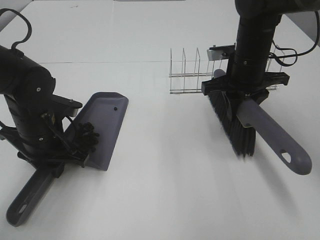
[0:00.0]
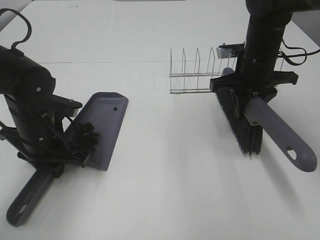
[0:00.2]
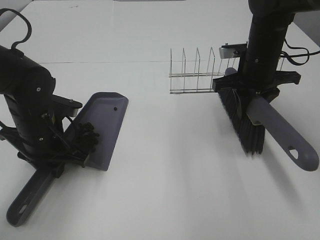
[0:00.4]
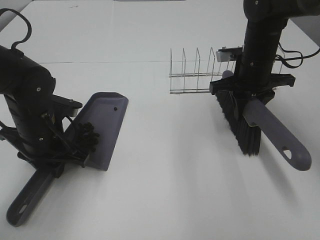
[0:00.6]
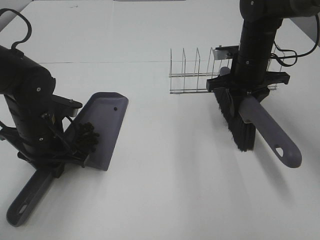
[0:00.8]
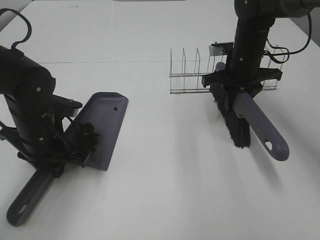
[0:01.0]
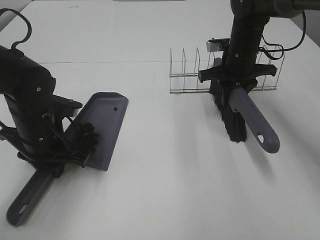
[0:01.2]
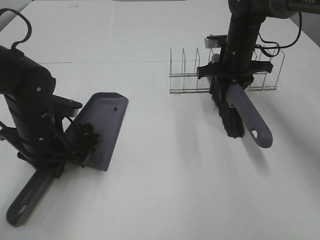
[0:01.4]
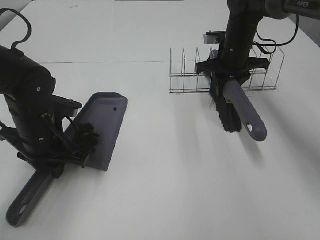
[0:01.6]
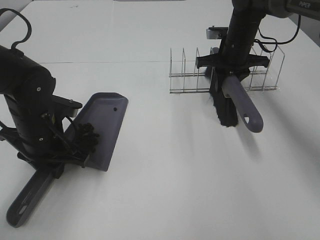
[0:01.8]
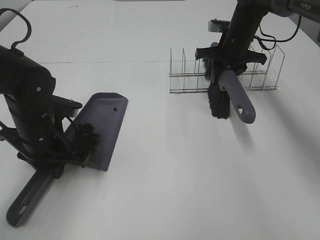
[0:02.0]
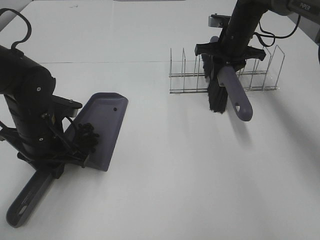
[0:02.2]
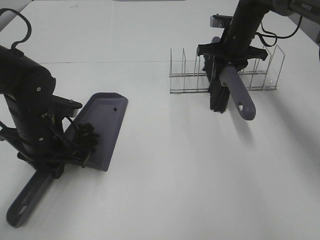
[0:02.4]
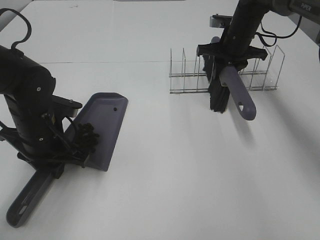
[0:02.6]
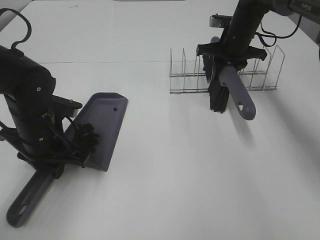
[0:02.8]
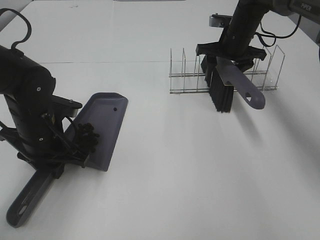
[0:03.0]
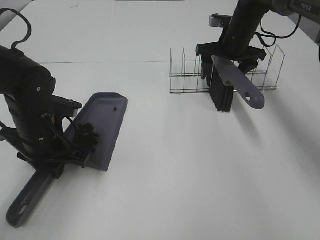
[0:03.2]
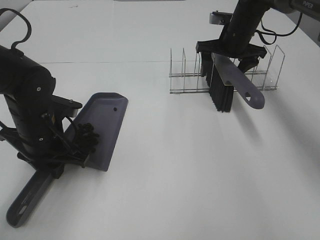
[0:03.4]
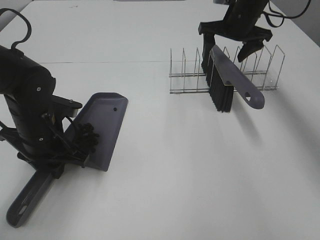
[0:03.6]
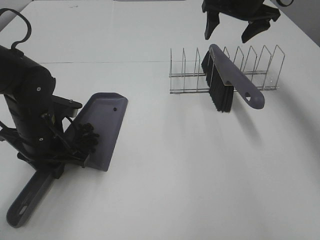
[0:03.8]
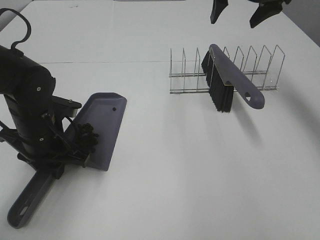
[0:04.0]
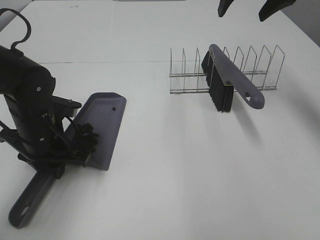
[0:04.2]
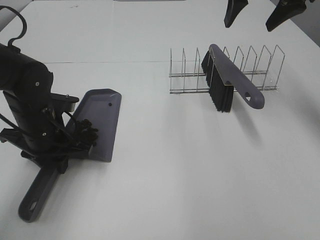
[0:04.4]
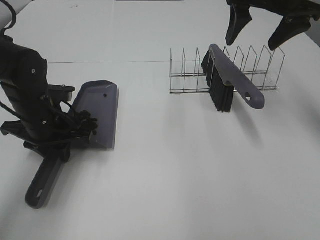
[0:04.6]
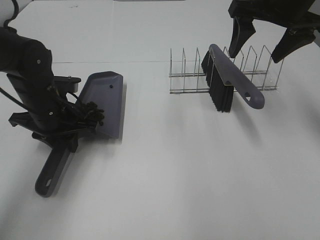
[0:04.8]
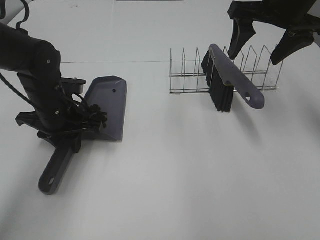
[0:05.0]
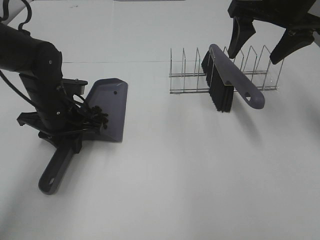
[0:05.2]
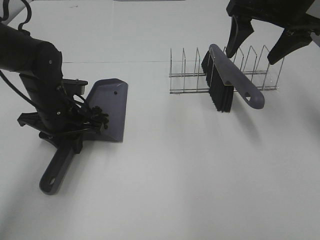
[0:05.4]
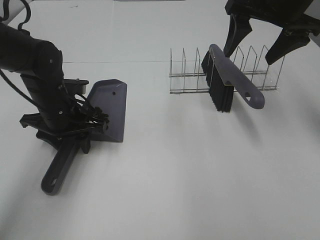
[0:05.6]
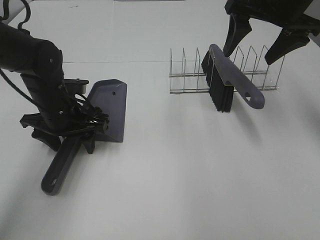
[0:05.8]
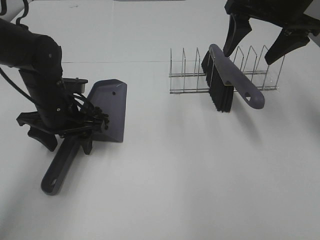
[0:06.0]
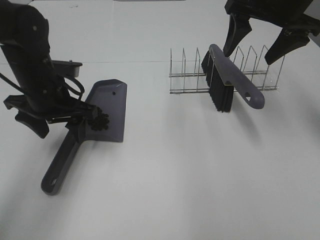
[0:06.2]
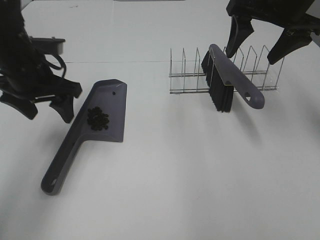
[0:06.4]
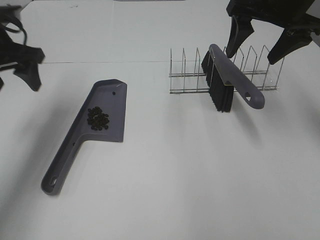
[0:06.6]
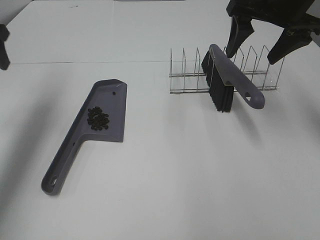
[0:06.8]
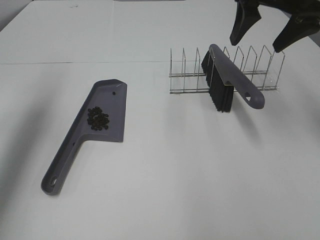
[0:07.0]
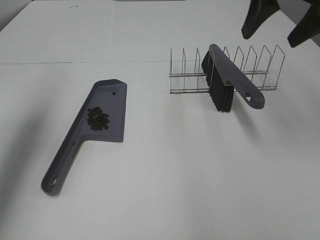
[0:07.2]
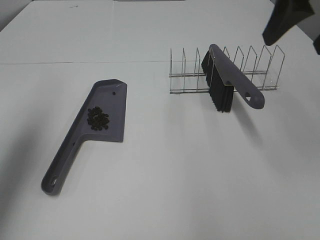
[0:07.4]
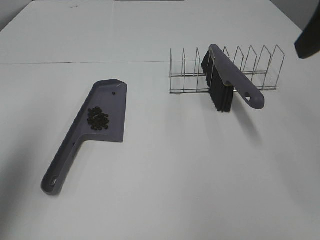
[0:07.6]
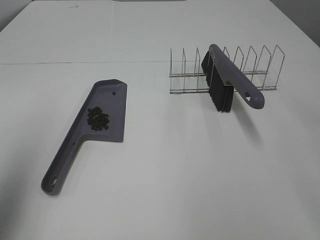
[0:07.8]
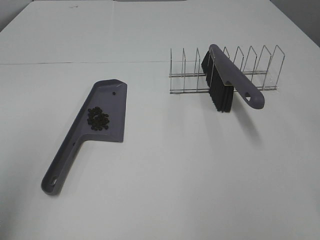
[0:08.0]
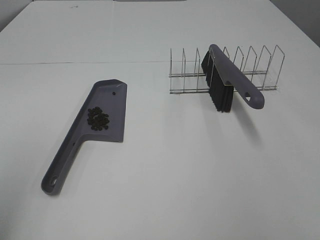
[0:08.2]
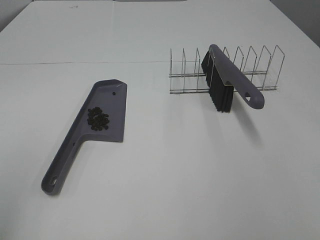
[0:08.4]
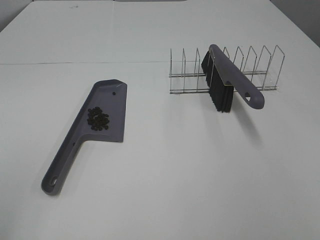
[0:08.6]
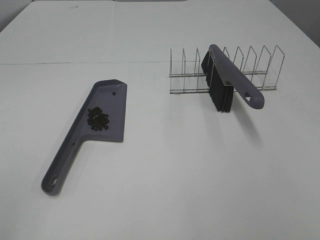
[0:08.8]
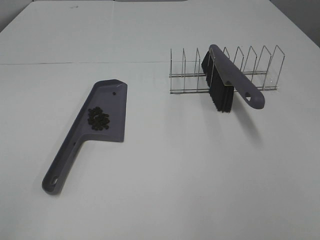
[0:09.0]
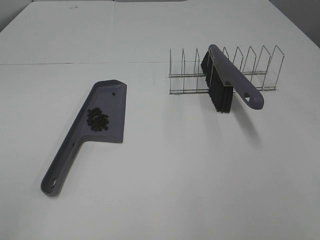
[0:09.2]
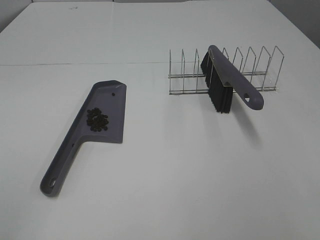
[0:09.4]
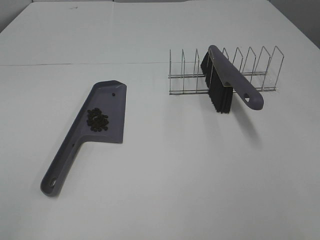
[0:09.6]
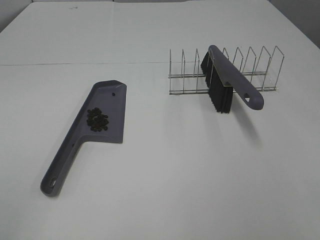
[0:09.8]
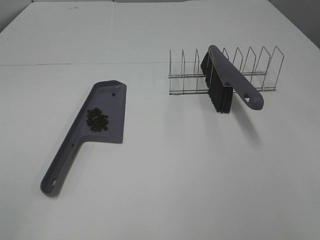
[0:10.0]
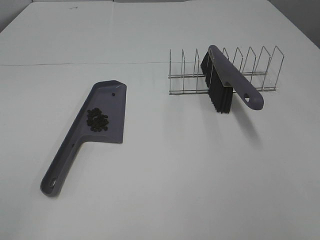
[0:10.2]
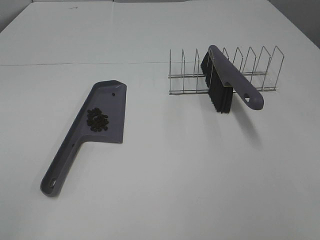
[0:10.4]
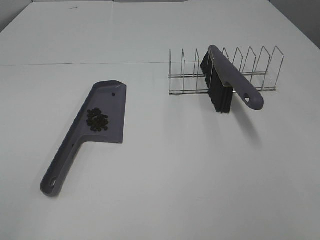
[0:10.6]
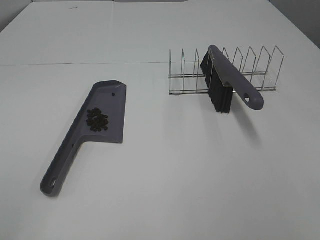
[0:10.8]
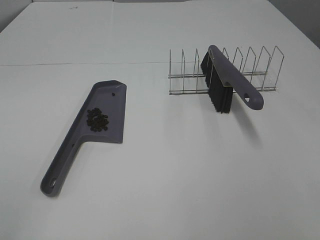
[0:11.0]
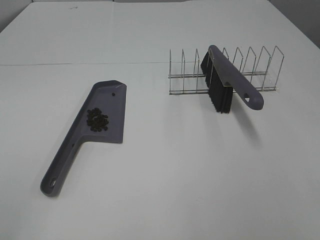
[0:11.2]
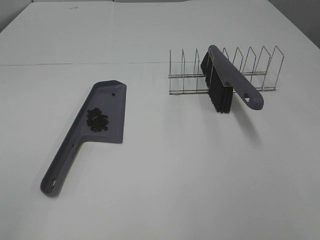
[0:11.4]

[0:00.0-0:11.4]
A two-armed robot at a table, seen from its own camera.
Task of the whole recording: Sweep Coffee Bean.
Step, 0:00.0 to 0:03.0: Right hand:place the broom on the rack.
Step, 0:03.2 to 0:05.6: Left hand:place the dustpan on the table.
0:00.0 to 0:01.4: The right gripper moves forward, some 10 cm.
0:01.4 to 0:02.8: The right gripper shifts by some 5 cm.
0:02.8 to 0:04.2: The right gripper travels upward and backward by approximately 20 cm, and opens.
0:04.2 to 0:05.6: The left gripper heads forward, covering roughly 5 cm, and opens; the right gripper heads backward, covering roughly 5 cm.
0:05.6 to 0:07.2: The right gripper goes roughly 5 cm backward and upward. The left gripper travels upward and to the left by roughly 25 cm.
0:07.2 to 0:08.6: The two grippers go about 30 cm backward.
0:08.6 to 0:10.0: The grippers stay close to where they were, moving slightly.
0:10.0 to 0:11.4: Both grippers stay put.

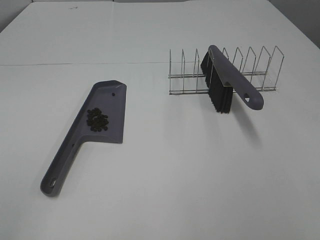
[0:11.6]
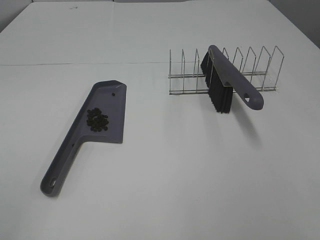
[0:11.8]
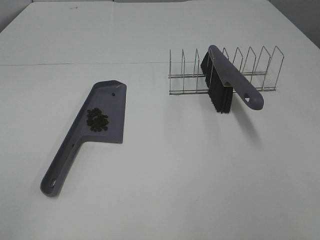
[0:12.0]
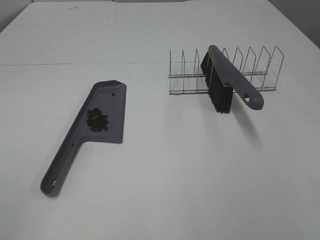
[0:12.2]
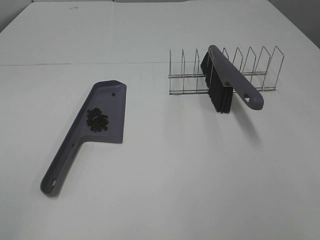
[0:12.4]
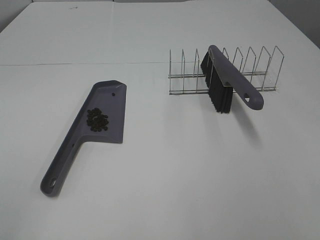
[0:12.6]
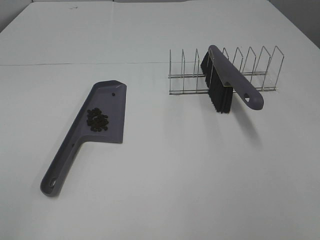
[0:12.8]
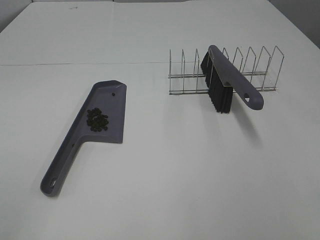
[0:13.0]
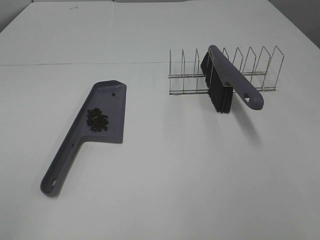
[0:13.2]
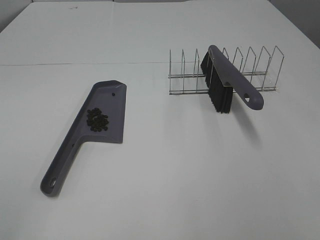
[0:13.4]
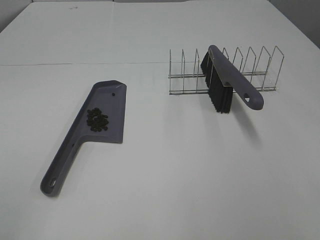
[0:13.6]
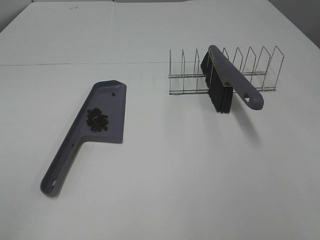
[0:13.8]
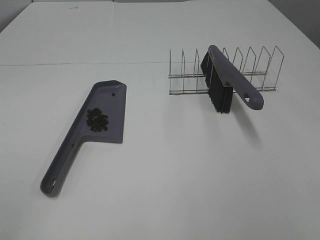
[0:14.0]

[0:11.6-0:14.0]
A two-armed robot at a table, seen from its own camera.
Task of the whole recording: Sweep Coffee Bean.
0:11.6 to 0:14.0: Both grippers stay put.
